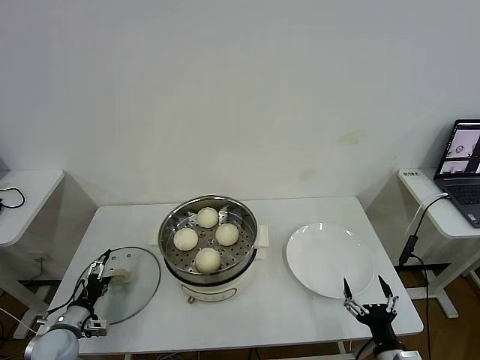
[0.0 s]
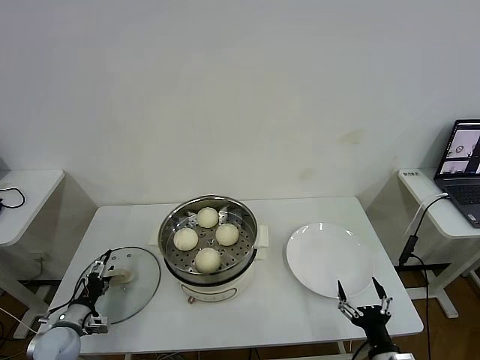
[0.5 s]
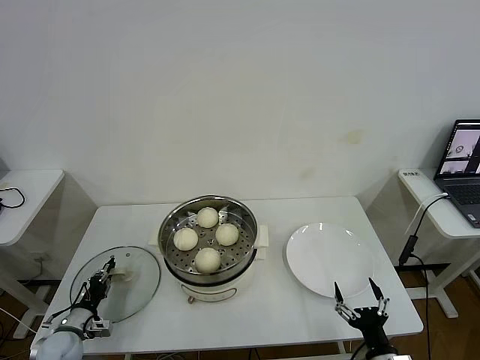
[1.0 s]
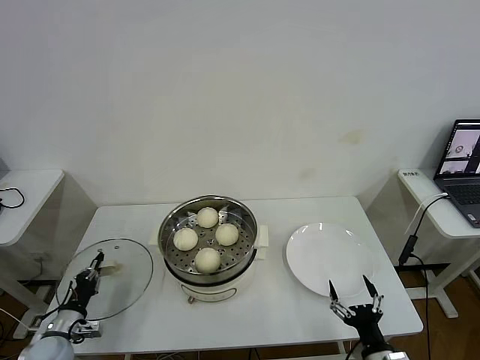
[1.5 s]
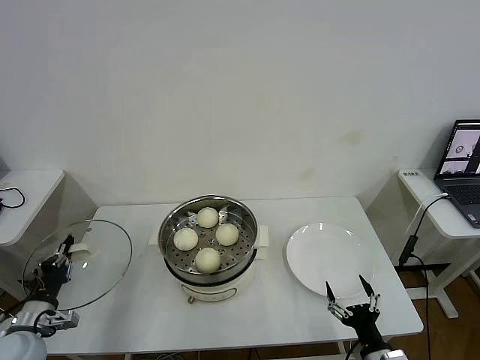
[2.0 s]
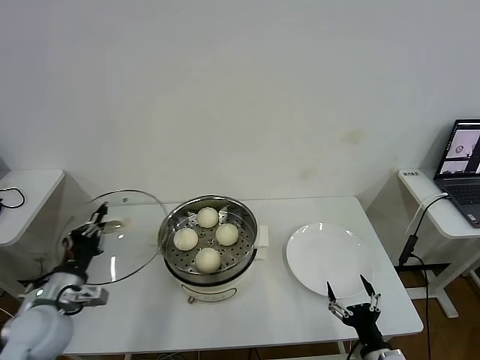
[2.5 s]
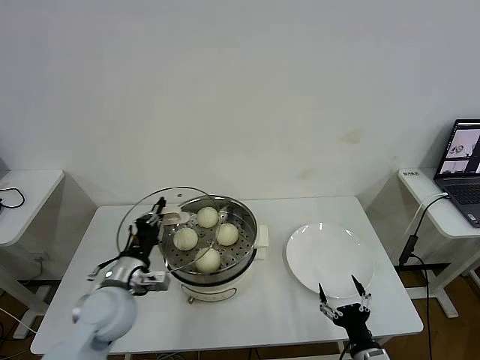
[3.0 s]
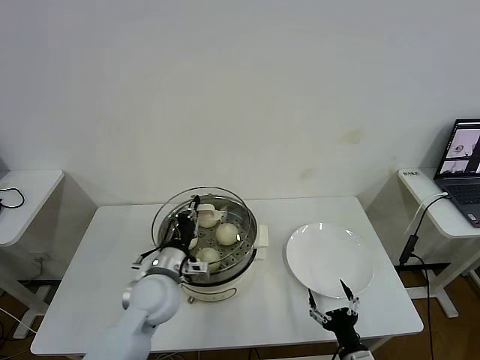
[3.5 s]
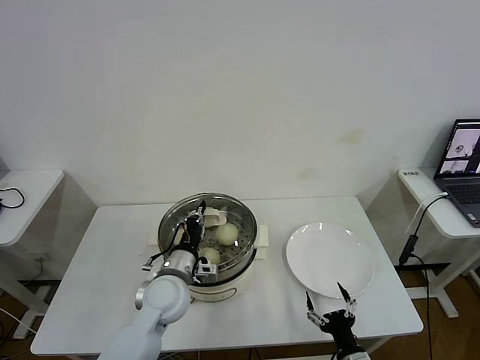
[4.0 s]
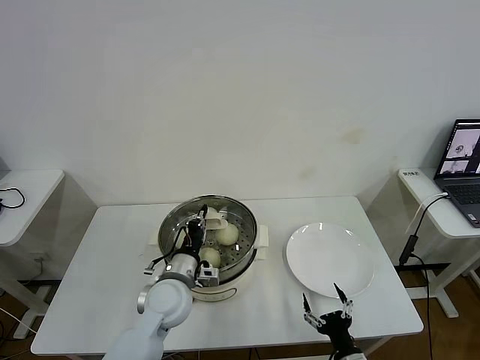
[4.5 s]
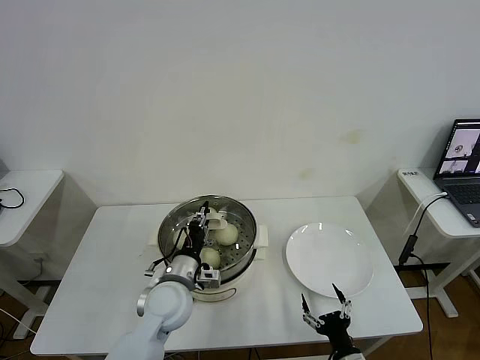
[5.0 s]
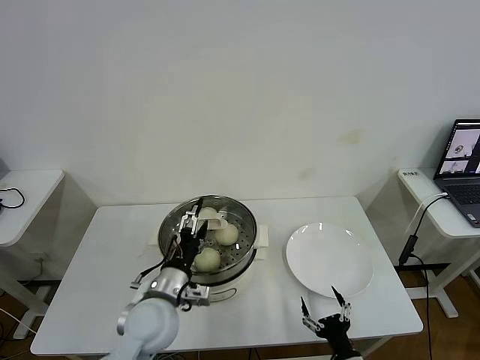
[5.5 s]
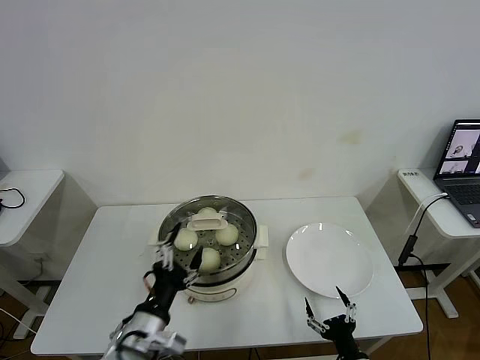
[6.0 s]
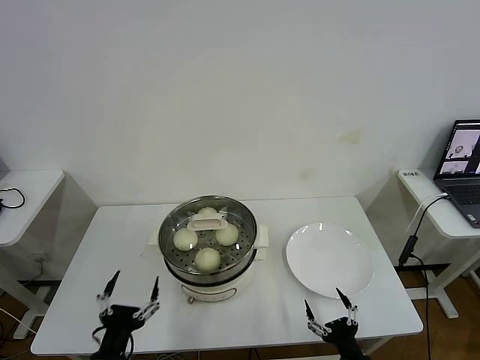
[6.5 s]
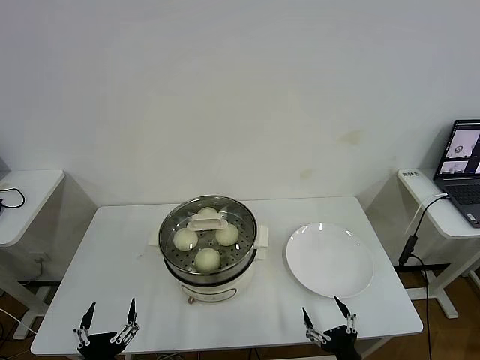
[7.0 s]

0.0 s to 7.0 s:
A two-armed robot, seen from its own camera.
Task of the whole recording: take steamed baozi put them in steamer then cover it.
Step, 1.5 to 5.5 s: Place the pot lid on the steamer with left gripper.
0.0 to 2.0 s: The left gripper is displaced upward by approximately 10 cm, and closes.
2.0 to 3.5 s: The left gripper shifts some 25 cm to the right.
3.5 to 5.0 s: The grippers stay close to where they were, moving slightly.
5.0 to 7.0 s: The left gripper moves backward and to the left, approximately 25 cm, and opens.
